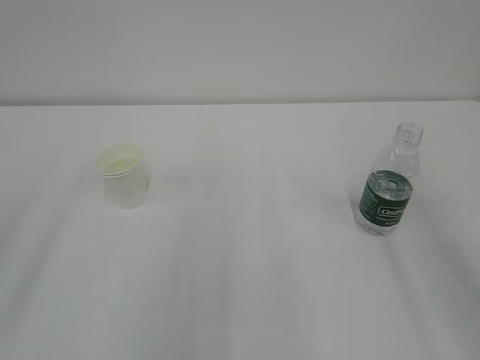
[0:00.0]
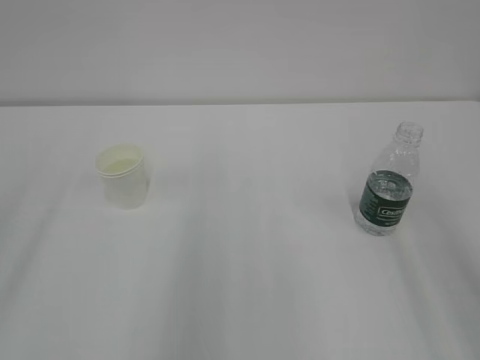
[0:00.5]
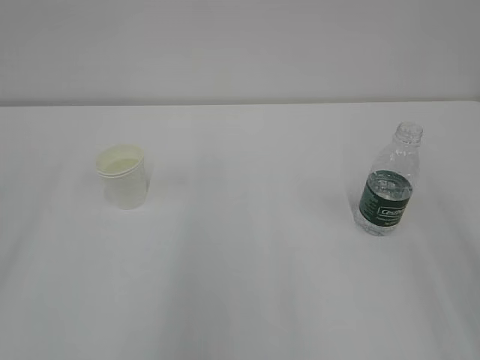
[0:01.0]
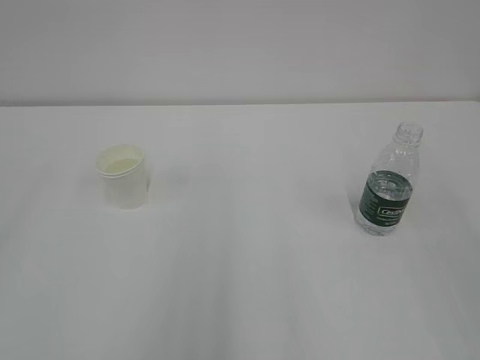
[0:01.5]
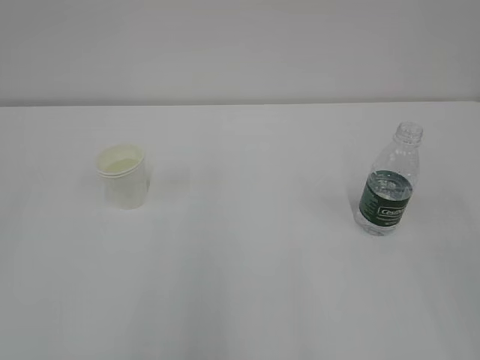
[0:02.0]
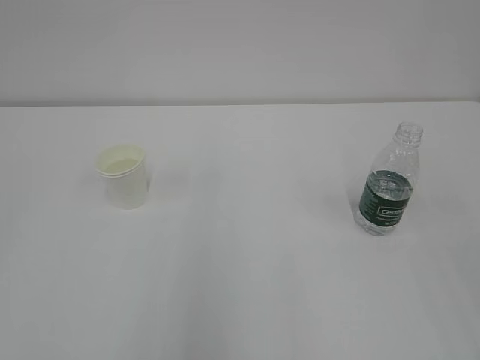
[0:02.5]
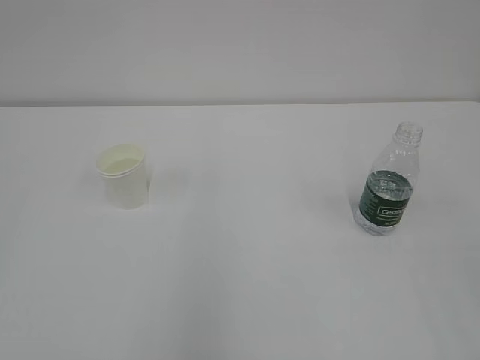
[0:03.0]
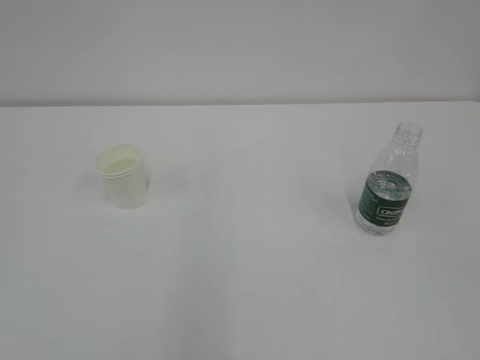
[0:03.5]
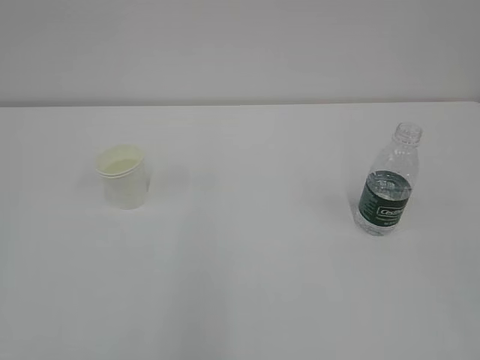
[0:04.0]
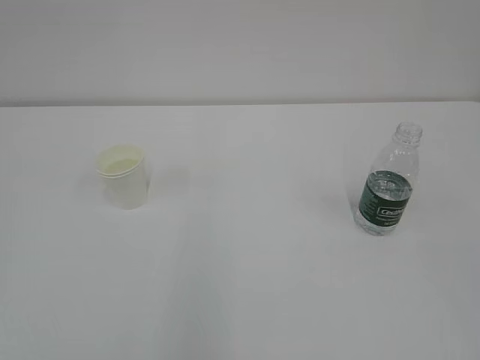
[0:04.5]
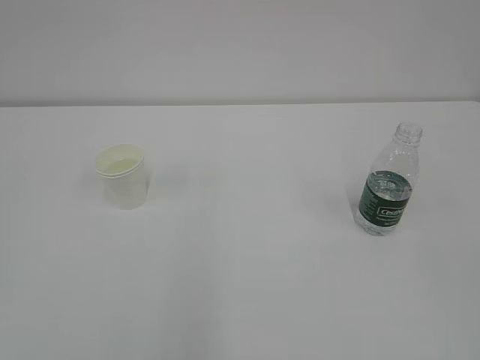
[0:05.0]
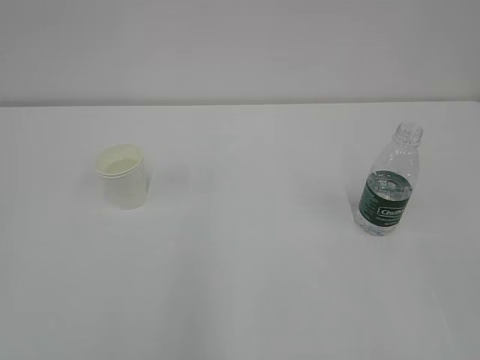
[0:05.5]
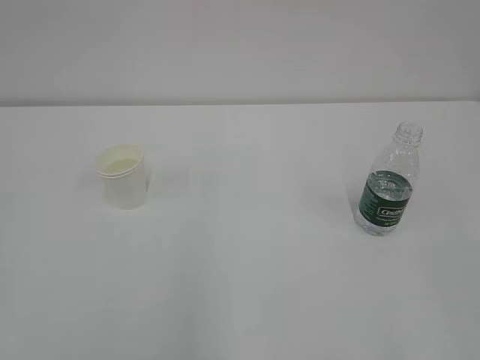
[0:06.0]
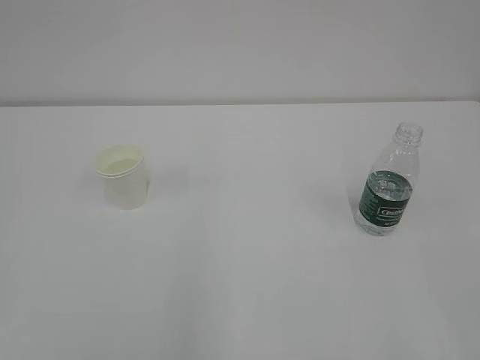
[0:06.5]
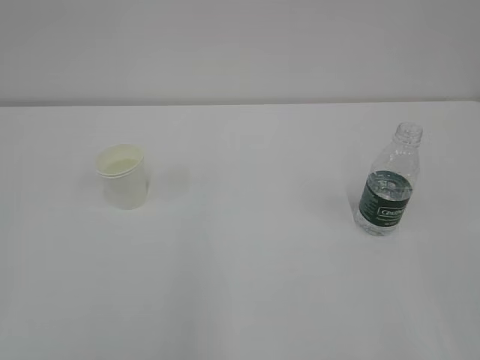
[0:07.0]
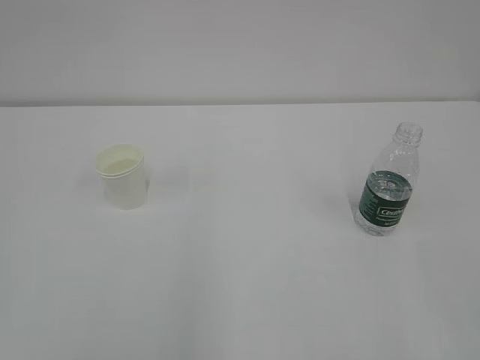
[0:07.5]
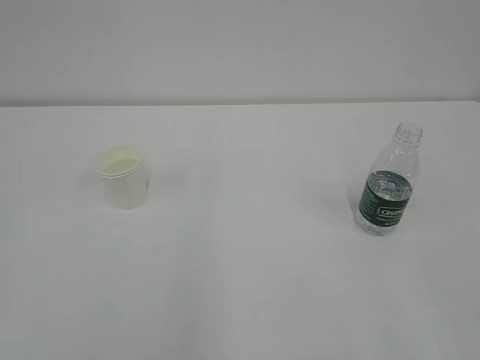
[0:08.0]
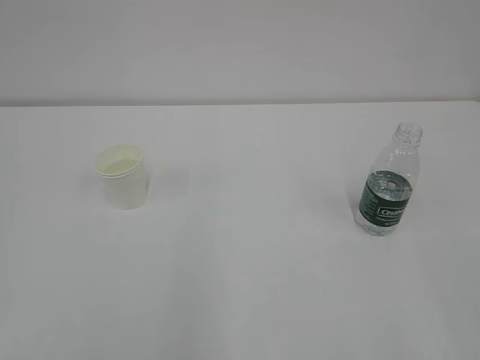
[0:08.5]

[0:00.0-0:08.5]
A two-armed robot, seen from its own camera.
0:06.5 to 0:08.5: Both grippers stay about where they are.

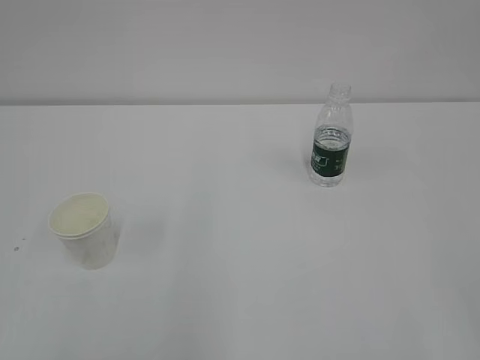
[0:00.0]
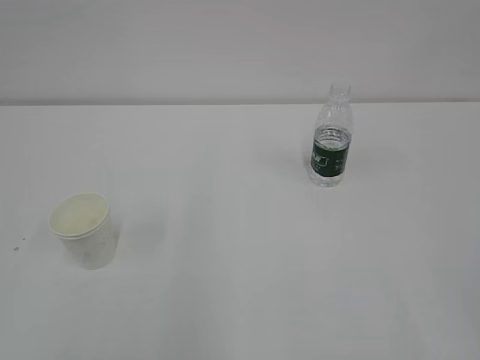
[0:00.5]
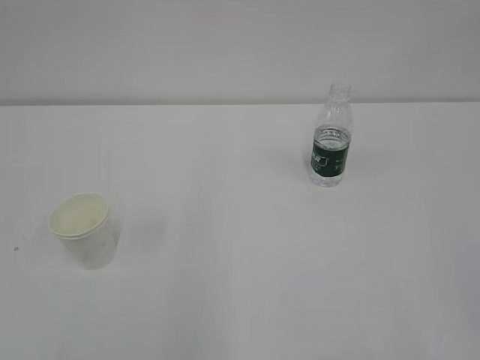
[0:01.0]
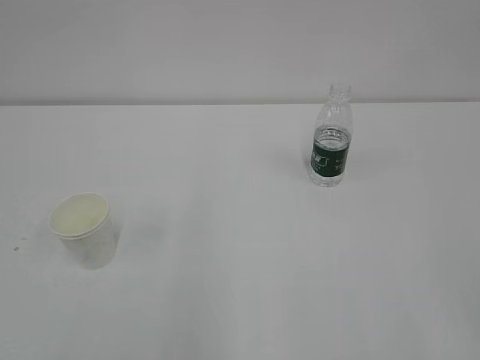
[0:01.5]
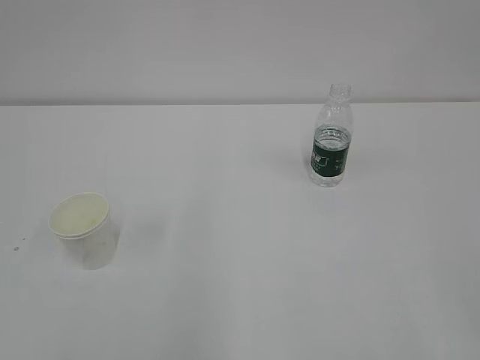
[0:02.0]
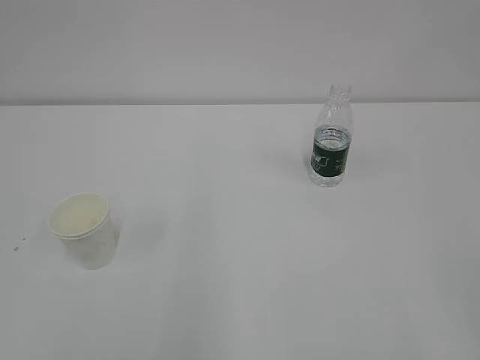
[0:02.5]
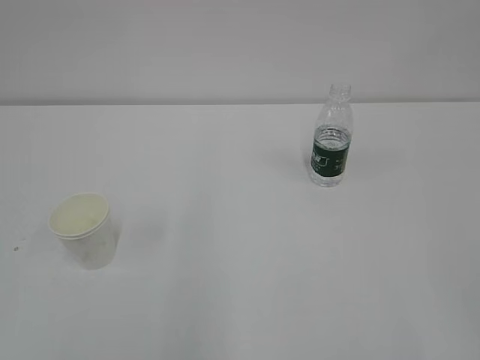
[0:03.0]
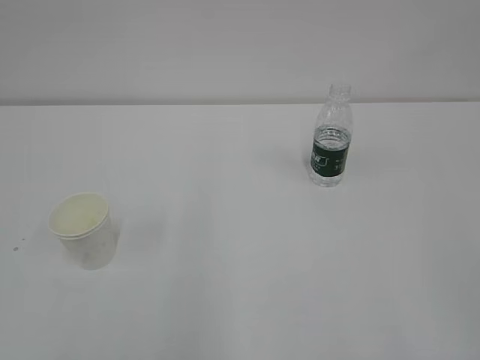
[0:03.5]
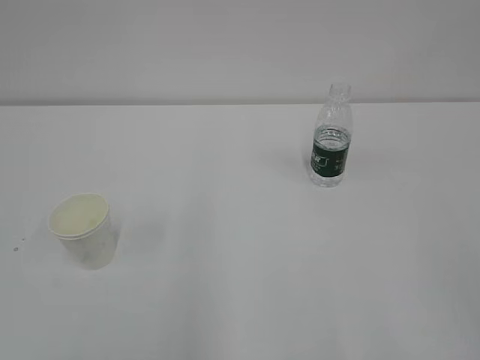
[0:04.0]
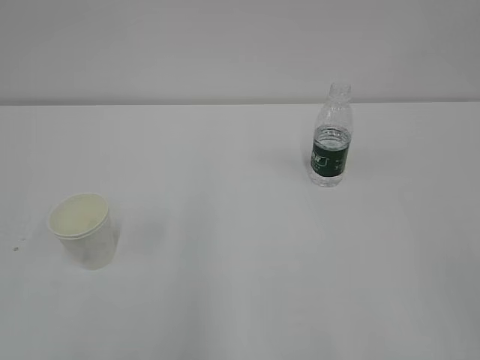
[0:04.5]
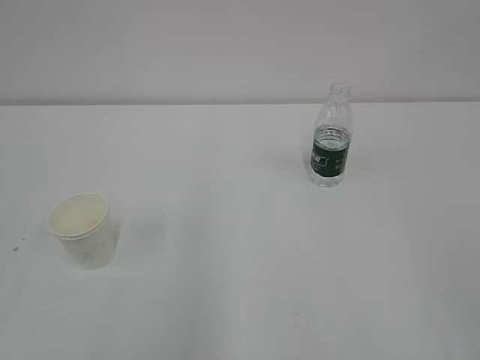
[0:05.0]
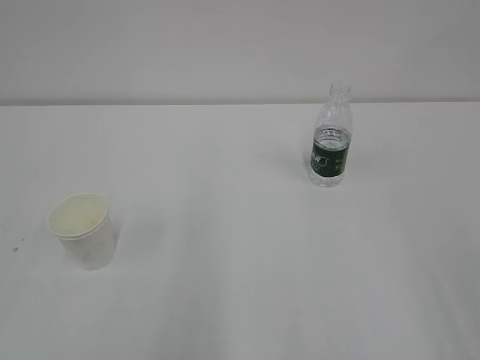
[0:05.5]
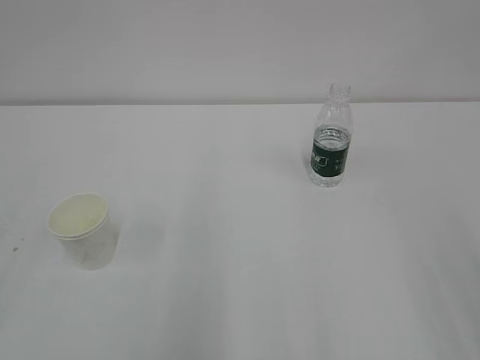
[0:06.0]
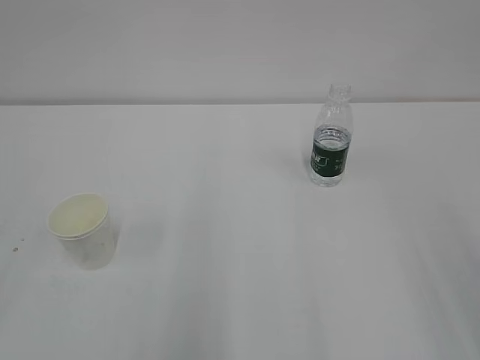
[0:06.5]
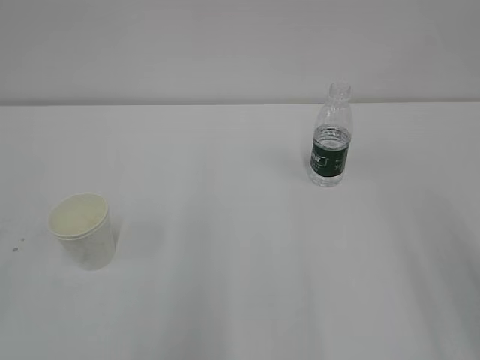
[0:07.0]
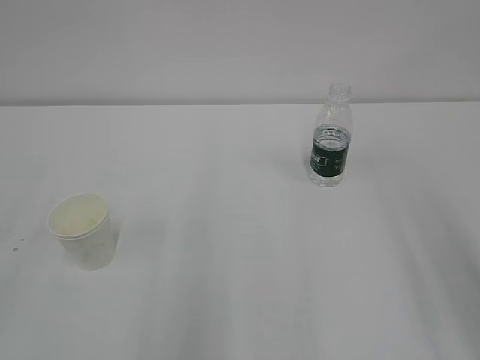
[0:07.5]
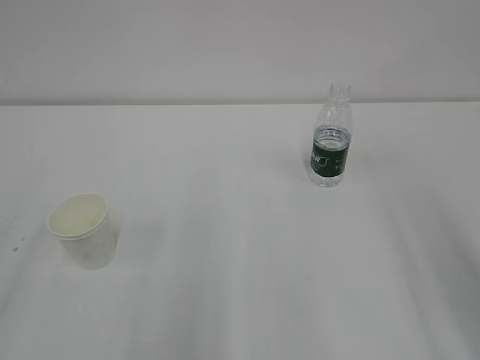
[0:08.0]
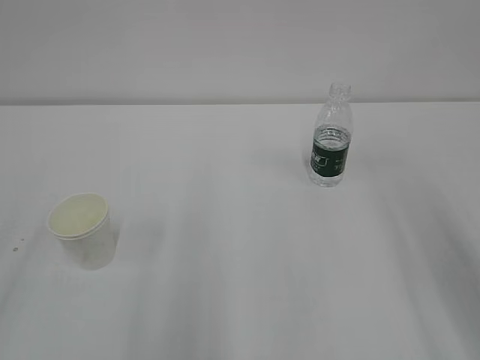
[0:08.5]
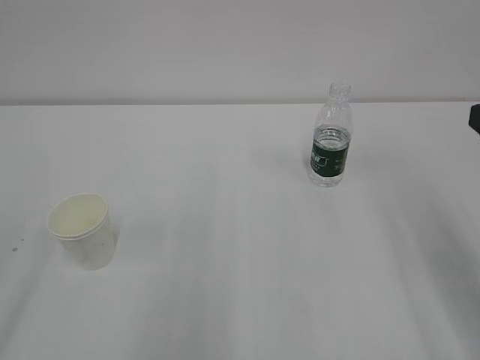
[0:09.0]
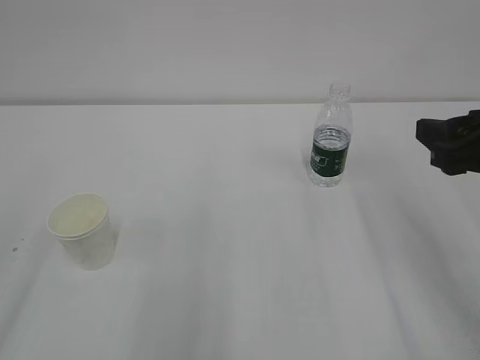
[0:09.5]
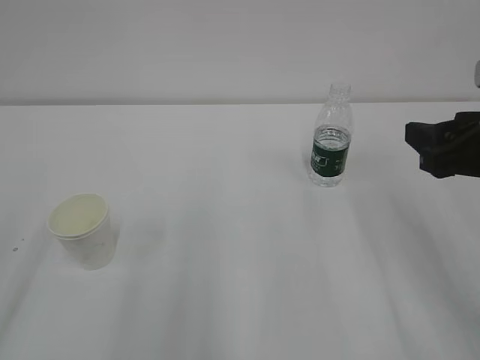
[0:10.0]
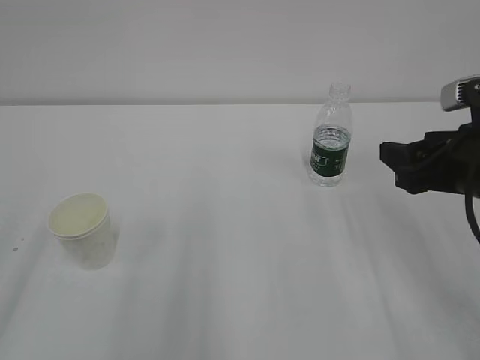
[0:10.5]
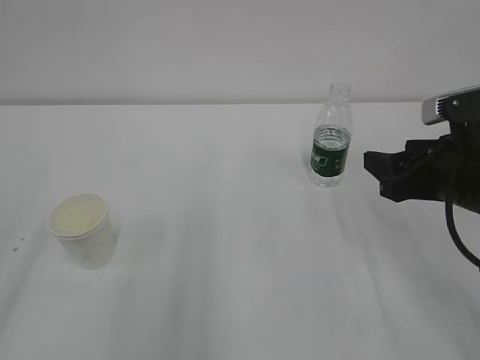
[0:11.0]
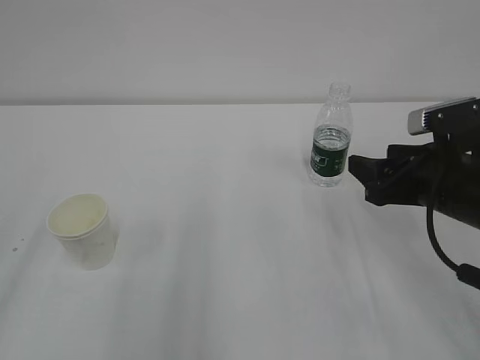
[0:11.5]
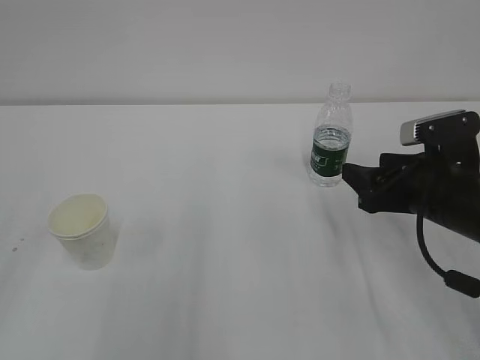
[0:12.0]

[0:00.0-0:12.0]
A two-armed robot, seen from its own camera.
0:08.0 to 0:10.0: The right gripper heads forward and downward, covering some 10 cm.
0:10.0 to 0:12.0: The right gripper is displaced downward by about 10 cm.

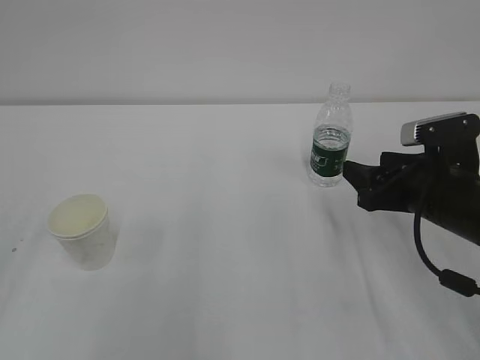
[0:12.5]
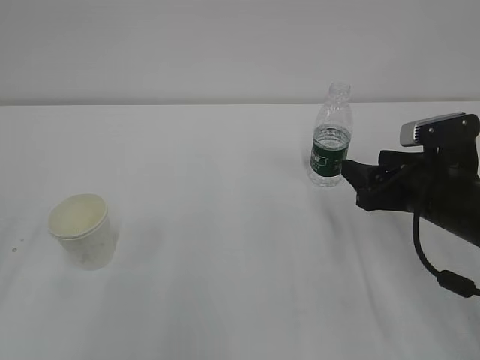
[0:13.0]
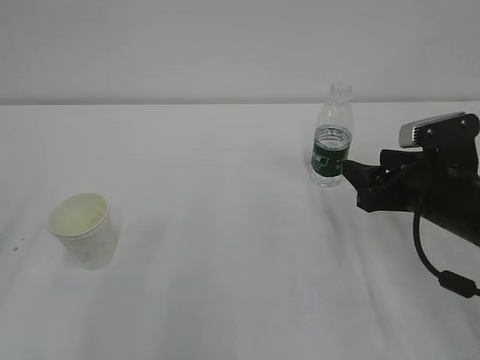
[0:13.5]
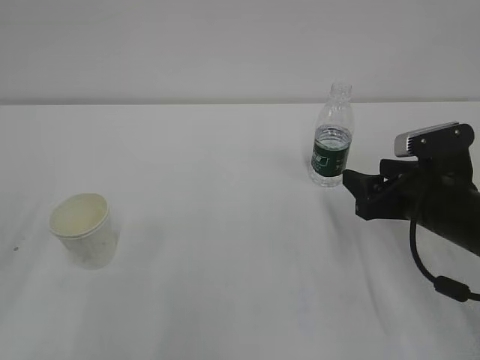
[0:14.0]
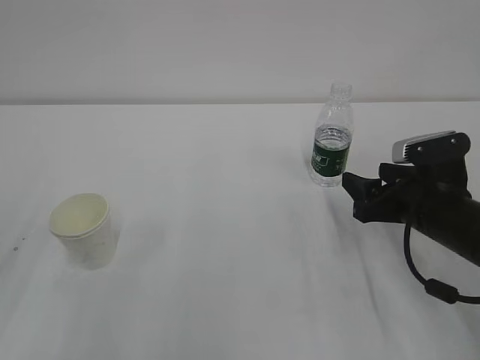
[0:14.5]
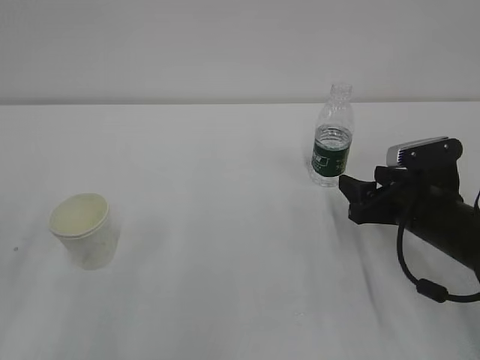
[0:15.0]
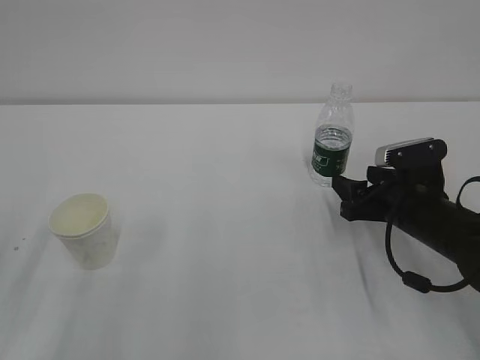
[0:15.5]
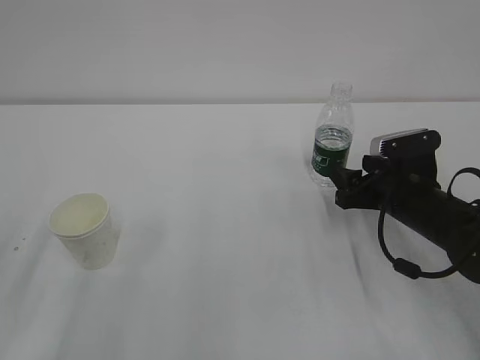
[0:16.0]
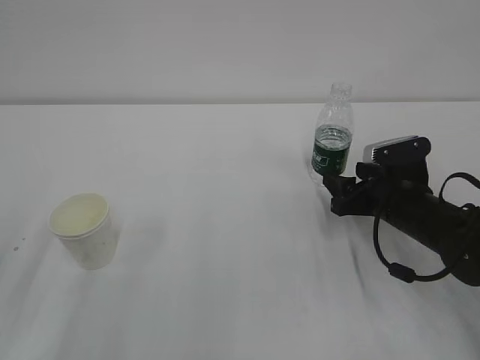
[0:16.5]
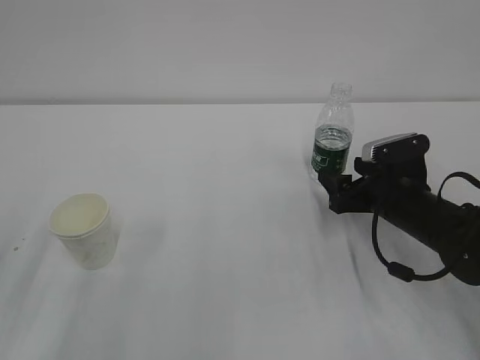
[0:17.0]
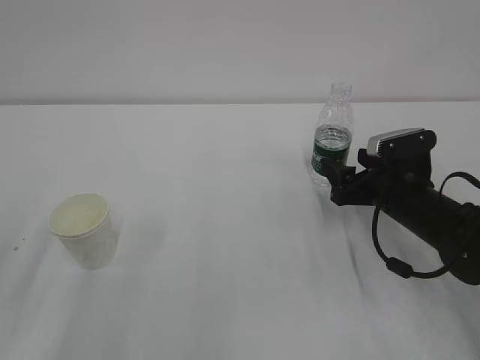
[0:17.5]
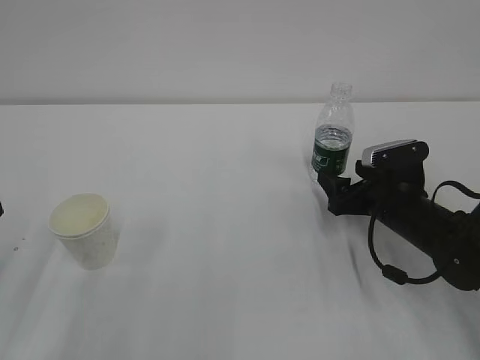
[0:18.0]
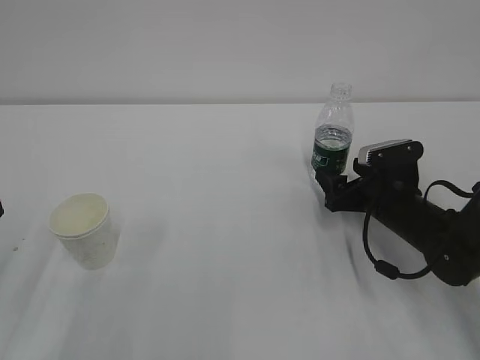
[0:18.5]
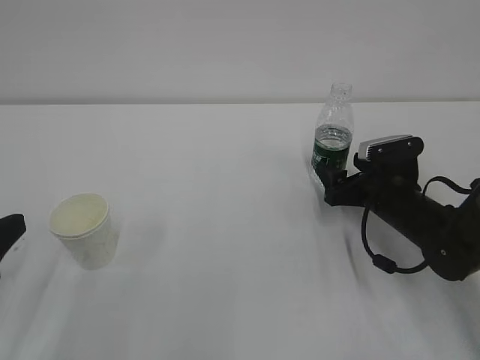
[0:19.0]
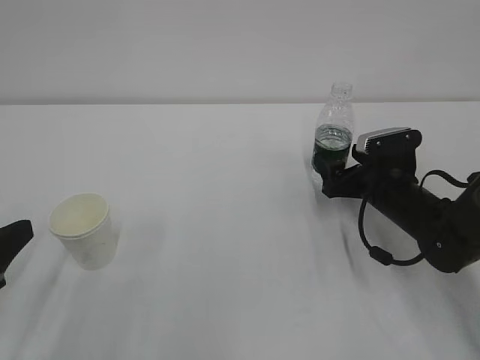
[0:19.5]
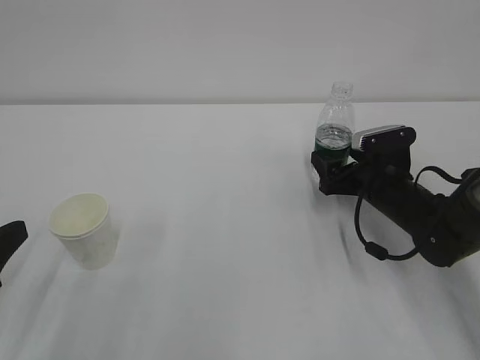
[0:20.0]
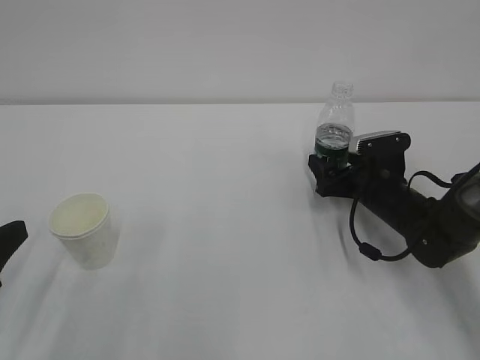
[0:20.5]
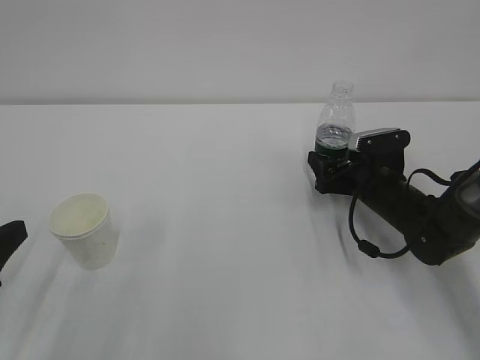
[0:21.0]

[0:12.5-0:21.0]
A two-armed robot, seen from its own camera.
0:14.5 to 0:16.5: The right gripper moves roughly 5 cm.
0:16.5 to 0:19.0: The right gripper opens.
0:19.0 to 0:21.0: There are only small adjustments of the grippers.
